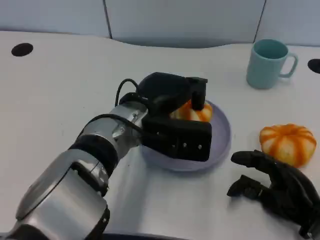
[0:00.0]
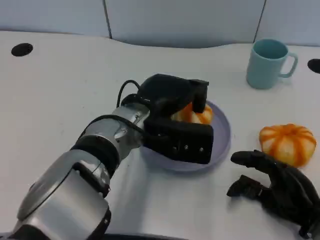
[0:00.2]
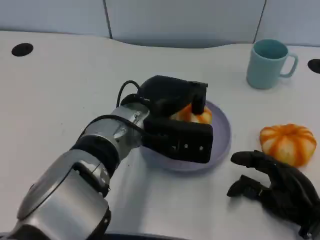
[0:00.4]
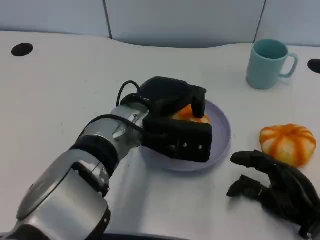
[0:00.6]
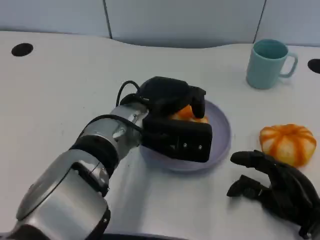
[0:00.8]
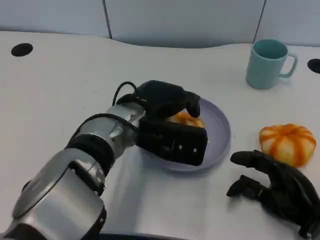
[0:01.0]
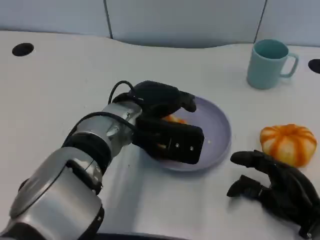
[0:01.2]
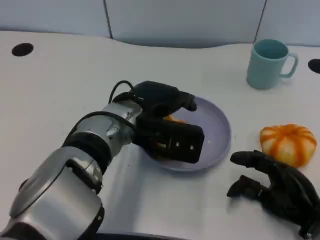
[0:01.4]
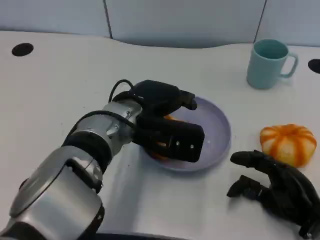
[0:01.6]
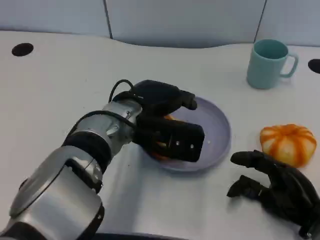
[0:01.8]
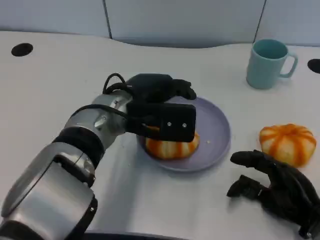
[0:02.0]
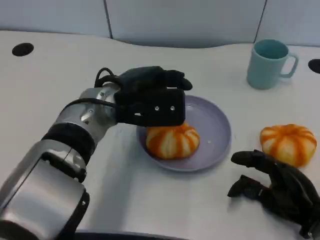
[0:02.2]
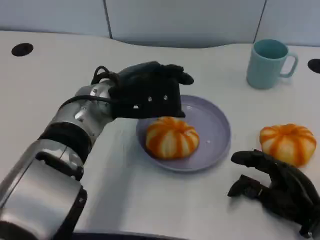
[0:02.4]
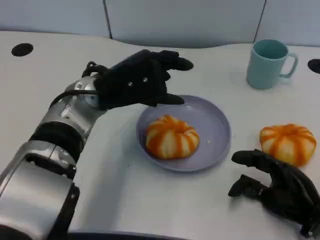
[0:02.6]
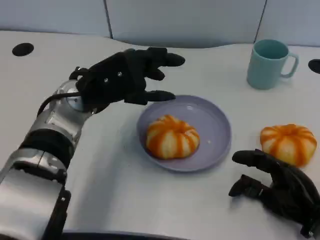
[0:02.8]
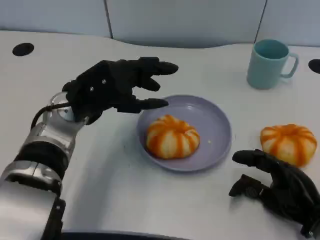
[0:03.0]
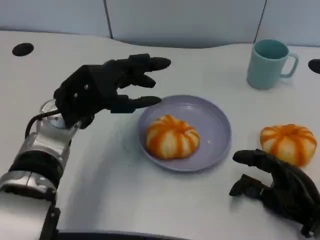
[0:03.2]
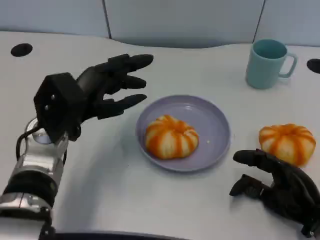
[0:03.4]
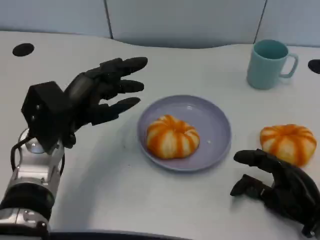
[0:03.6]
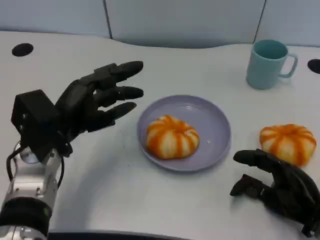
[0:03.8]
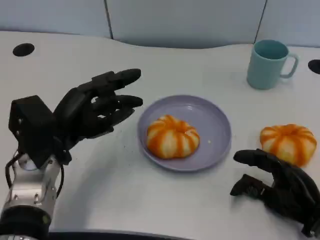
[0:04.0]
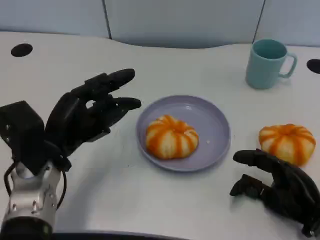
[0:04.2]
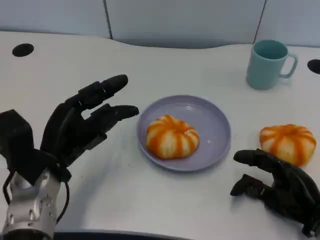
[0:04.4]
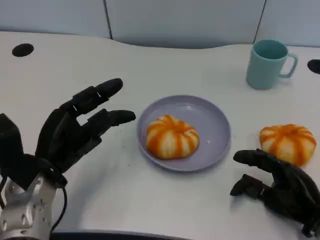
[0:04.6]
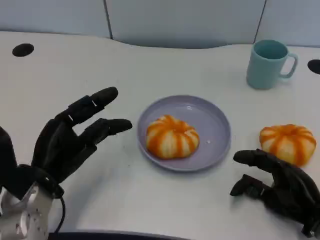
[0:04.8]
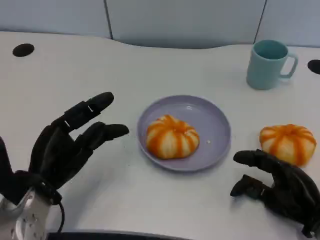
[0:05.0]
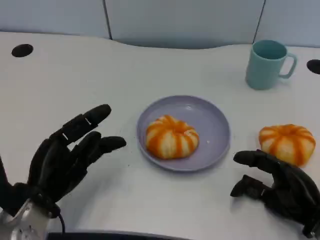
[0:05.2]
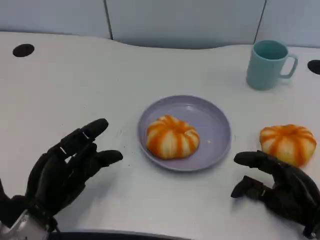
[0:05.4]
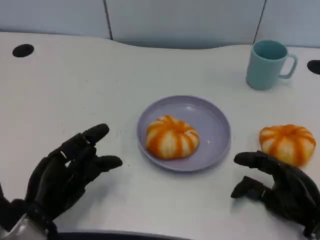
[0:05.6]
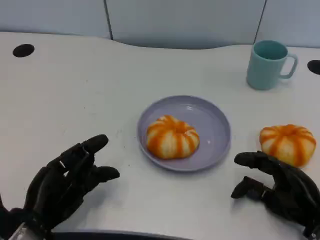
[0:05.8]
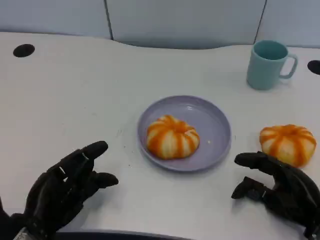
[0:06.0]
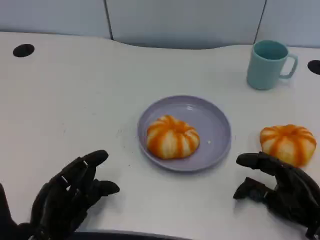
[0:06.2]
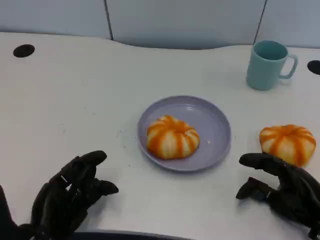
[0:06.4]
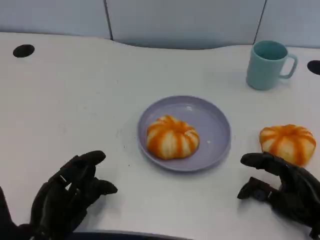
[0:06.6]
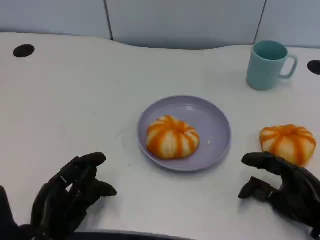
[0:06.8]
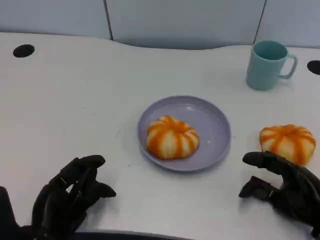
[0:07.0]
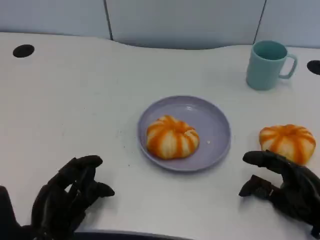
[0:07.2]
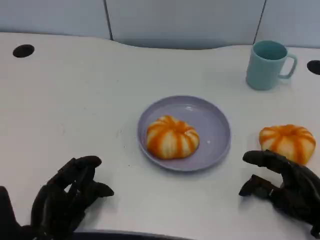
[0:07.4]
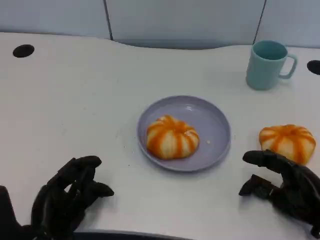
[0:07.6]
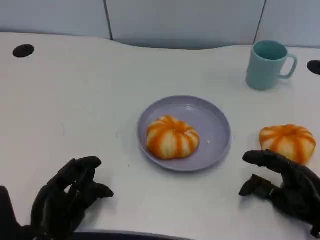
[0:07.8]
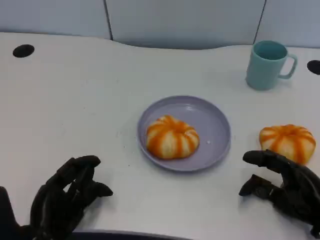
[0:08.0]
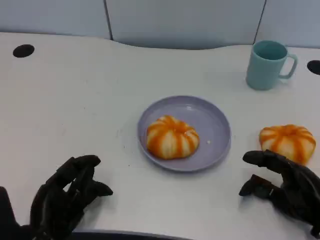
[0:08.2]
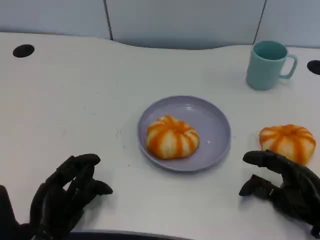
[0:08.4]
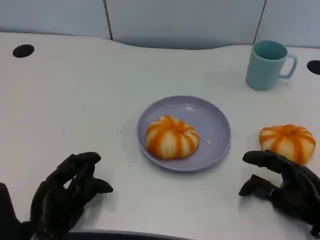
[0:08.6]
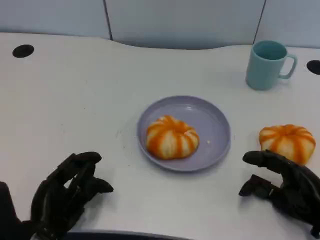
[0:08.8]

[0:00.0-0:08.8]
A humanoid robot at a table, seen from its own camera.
Task of the whole recording: Grasp the bread from the table and place it into the plate.
0:00.0 to 0:01.4: The hands stay close to where they were, moving slightly.
0:01.4 to 0:03.0: The left hand goes approximately 10 cm to the left.
0:03.0 to 0:04.4: The left hand is displaced backward, downward and to the left by about 10 cm.
0:04.4 to 0:05.8: The left hand moves backward and downward, approximately 10 cm.
0:05.8 to 0:07.4: The hands stay close to where they were, moving slightly.
0:07.4 to 0:08.8: The two hands keep their place.

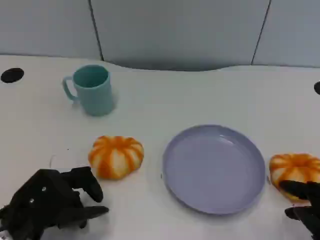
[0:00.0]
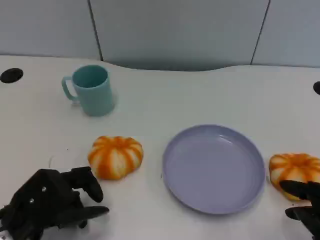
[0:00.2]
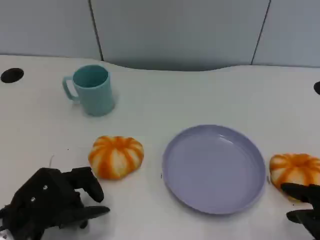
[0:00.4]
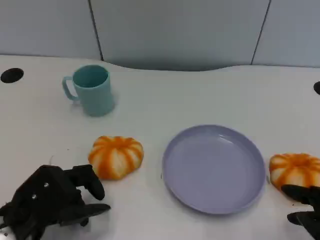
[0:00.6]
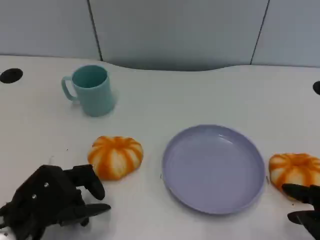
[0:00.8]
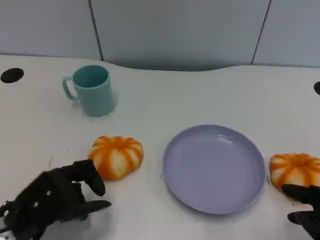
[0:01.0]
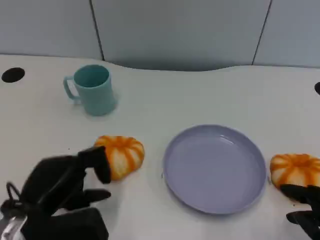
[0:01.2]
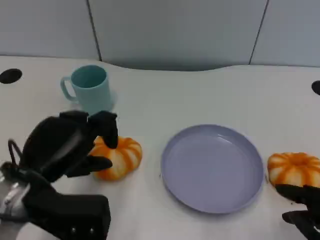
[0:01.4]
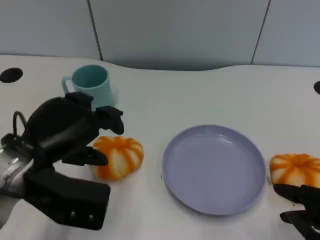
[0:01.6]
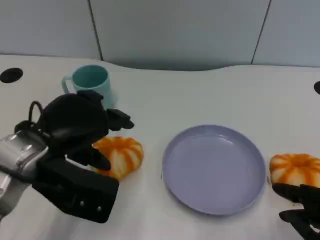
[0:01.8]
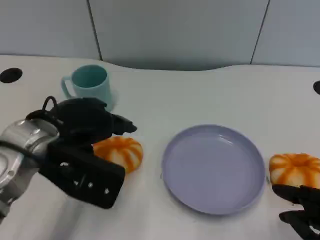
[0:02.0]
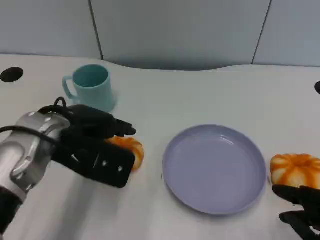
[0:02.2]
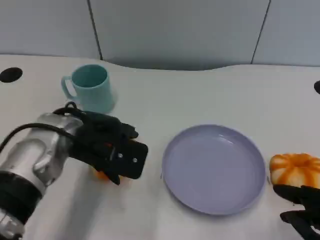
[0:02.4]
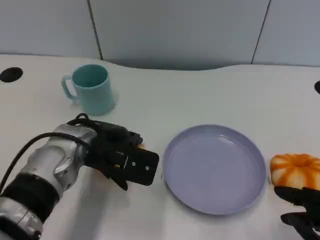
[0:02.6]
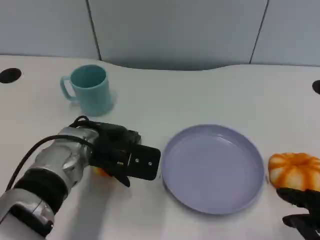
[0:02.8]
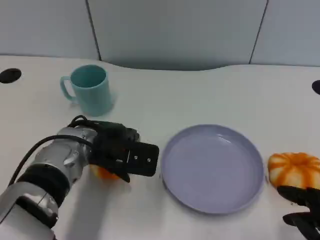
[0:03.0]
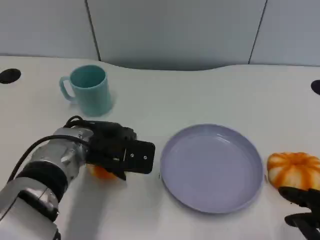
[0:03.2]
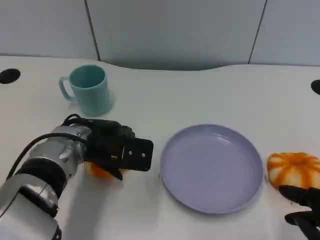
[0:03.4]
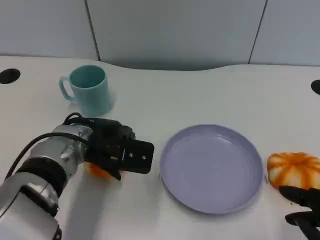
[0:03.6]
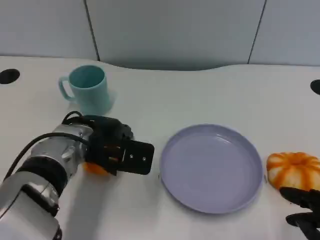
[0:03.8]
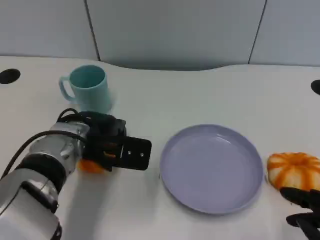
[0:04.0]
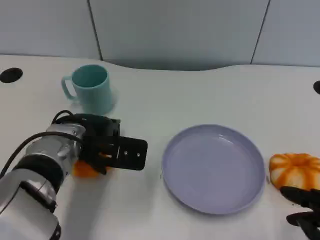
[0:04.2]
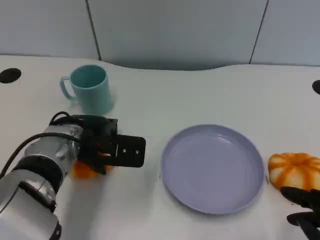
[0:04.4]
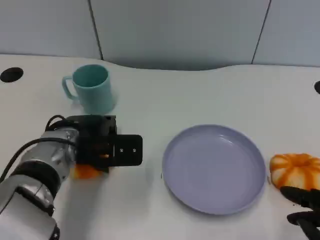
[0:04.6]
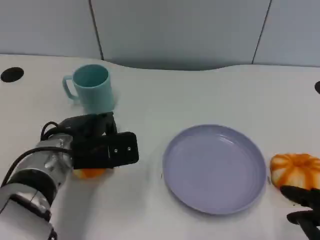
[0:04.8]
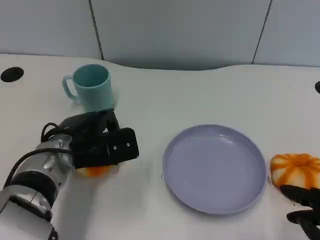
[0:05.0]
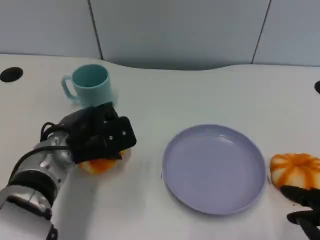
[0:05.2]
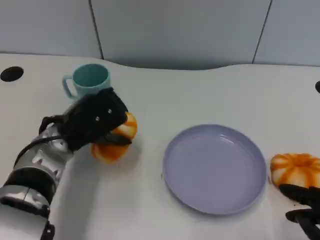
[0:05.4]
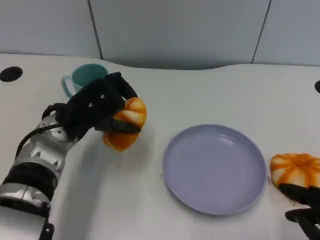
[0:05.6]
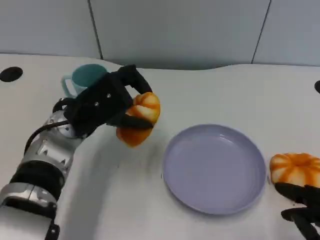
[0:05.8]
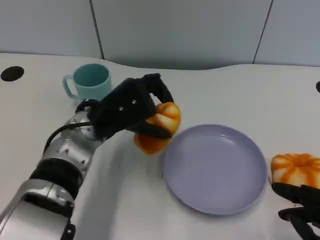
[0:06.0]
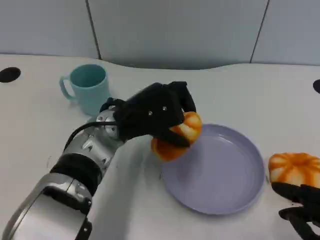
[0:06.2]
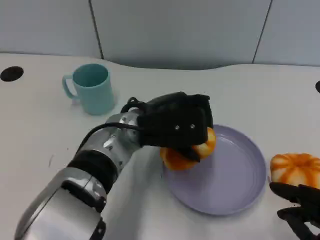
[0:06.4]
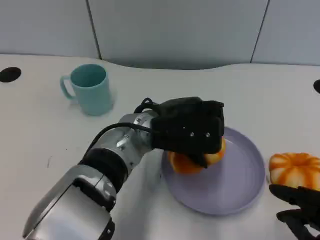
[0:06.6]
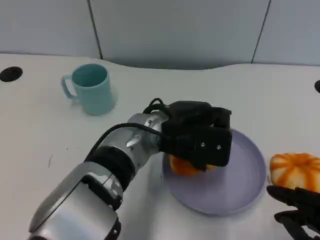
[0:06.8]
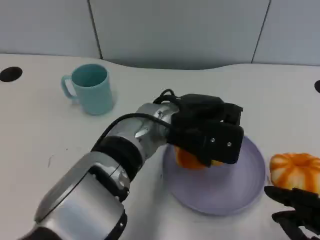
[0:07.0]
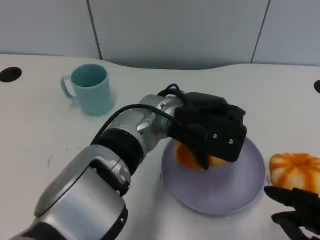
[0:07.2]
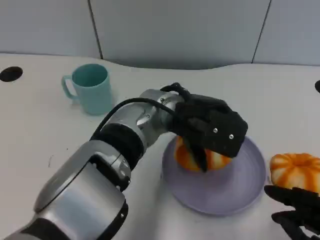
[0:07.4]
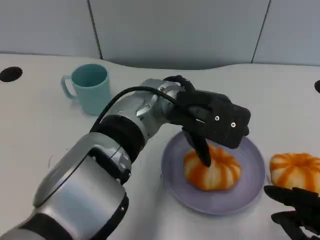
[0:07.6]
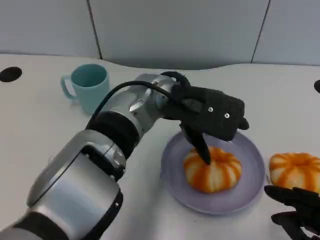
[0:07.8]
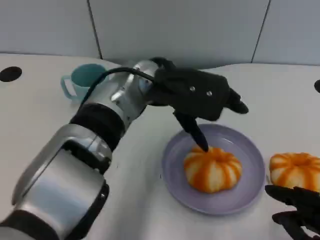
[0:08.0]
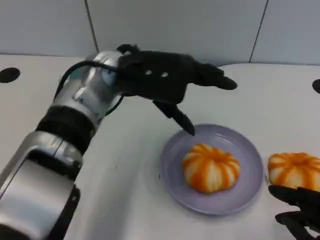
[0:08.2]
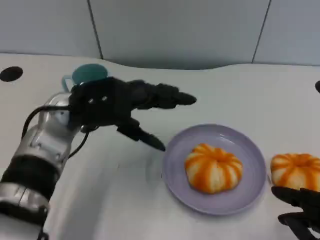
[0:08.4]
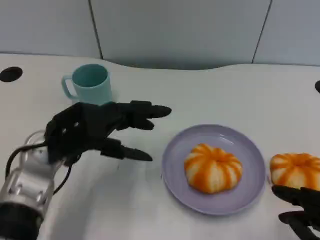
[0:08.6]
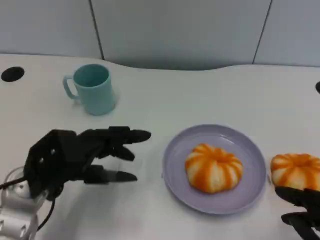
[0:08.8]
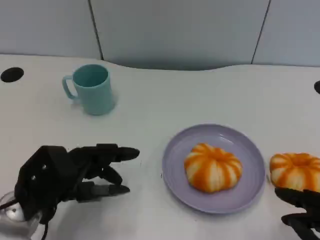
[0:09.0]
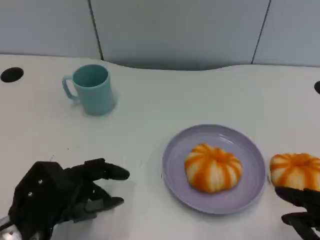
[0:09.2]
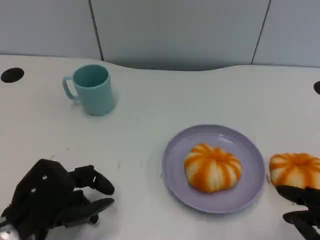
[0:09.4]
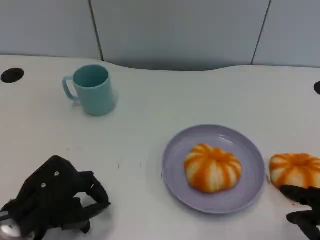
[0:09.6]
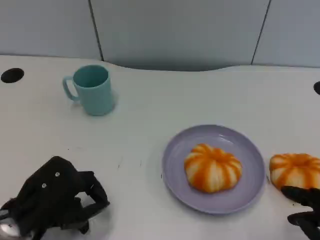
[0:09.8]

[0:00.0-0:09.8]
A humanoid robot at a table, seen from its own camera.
Task of the whole recording: Grasp the bread from the table and place it into the plate.
0:00.0 to 0:01.4: The left hand moves upward, about 5 cm.
0:01.4 to 0:02.8: The left hand moves forward and to the right, approximately 10 cm.
0:02.8 to 0:04.2: The hands move only a little.
0:05.6 to 0:07.0: The left hand shifts roughly 15 cm to the right.
0:07.0 to 0:08.4: The left hand shifts about 15 cm to the left.
0:08.4 to 0:09.8: The left hand goes approximately 15 cm backward, downward and to the left.

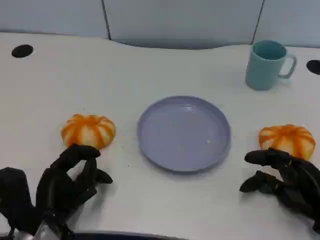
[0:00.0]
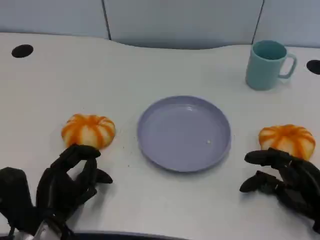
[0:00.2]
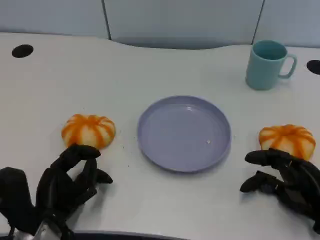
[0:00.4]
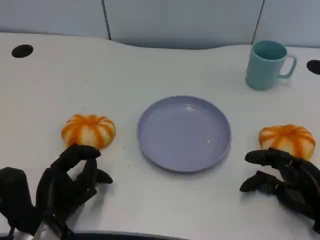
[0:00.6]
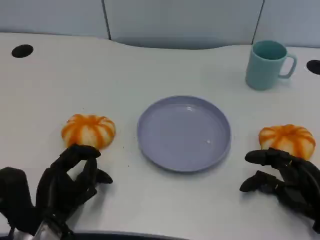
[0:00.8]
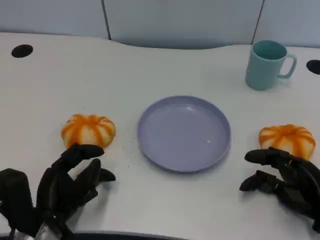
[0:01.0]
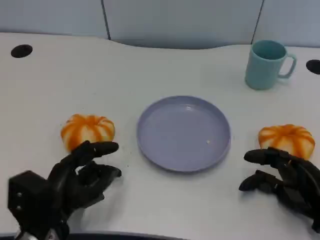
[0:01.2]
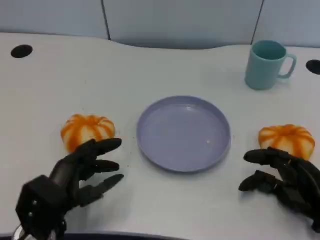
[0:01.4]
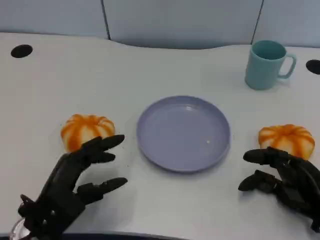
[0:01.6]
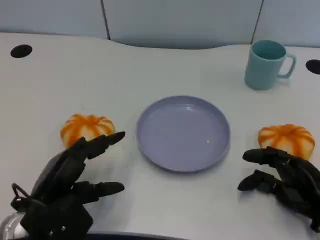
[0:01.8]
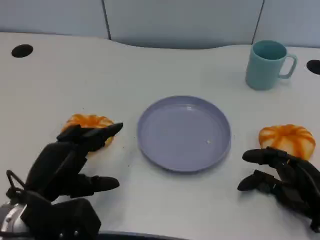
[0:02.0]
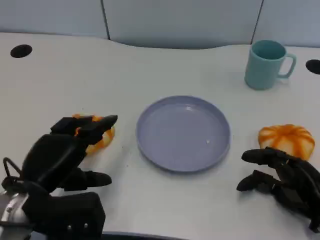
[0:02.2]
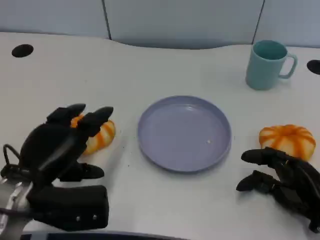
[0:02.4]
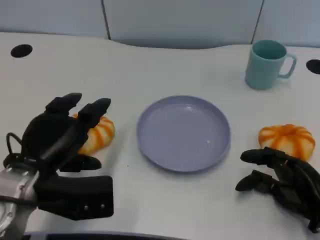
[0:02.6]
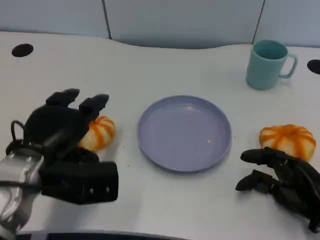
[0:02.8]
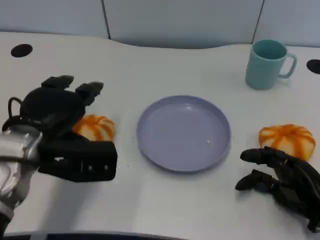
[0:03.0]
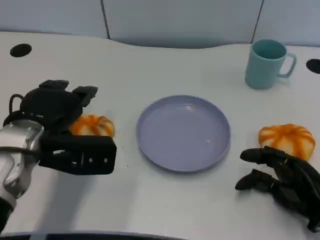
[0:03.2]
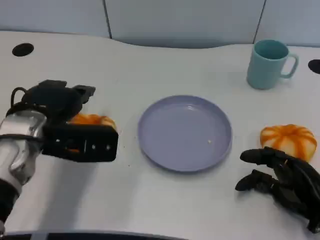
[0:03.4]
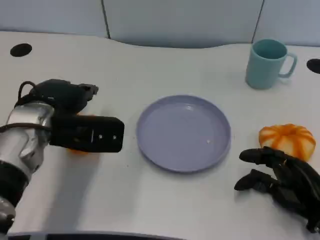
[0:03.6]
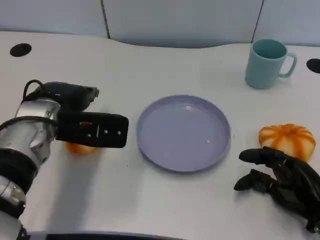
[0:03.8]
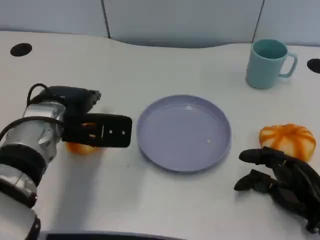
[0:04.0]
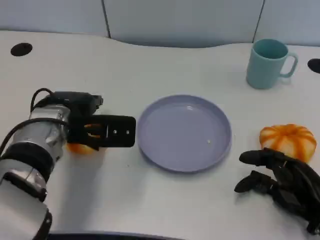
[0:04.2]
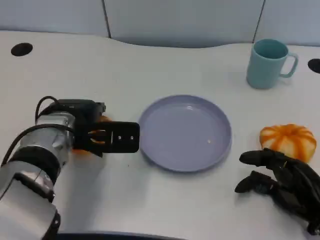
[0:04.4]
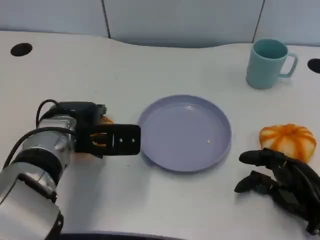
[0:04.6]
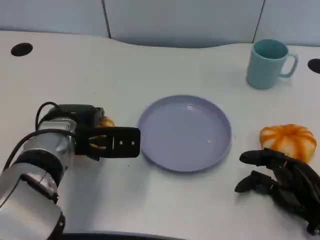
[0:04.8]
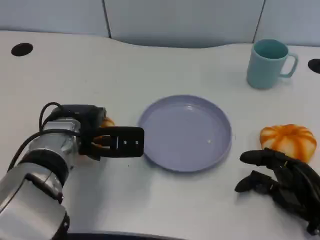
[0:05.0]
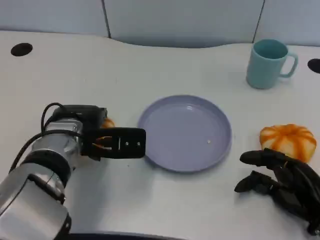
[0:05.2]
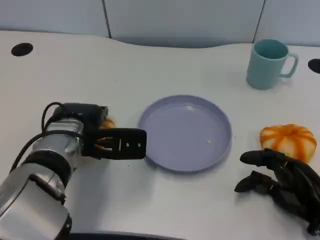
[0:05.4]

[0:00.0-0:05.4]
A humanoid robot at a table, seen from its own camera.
Task of the whole recording: Grasp the bread from the table and place it into the plate.
0:01.4 to 0:02.8: The left hand travels upward and forward by about 10 cm.
0:02.8 to 0:04.0: The left hand heads forward, covering approximately 5 cm.
0:04.0 to 0:05.4: The hands make only small movements.
